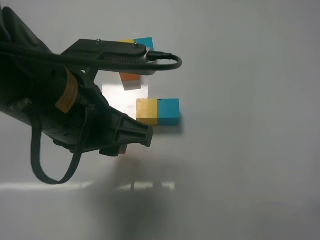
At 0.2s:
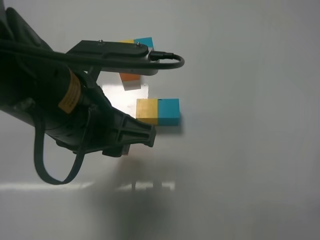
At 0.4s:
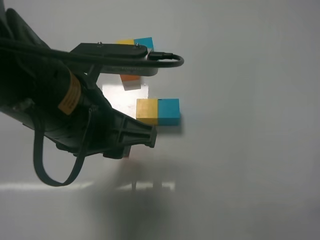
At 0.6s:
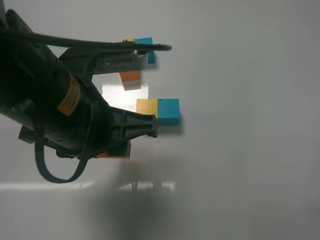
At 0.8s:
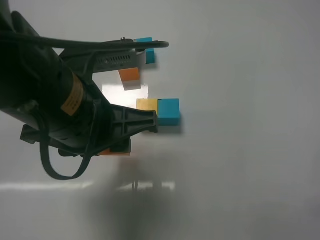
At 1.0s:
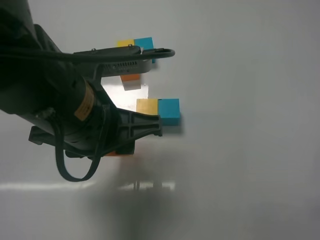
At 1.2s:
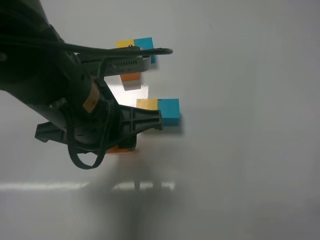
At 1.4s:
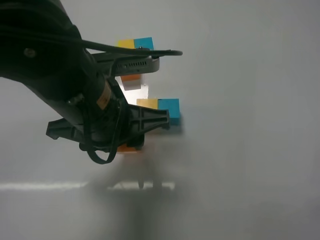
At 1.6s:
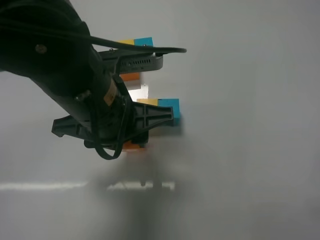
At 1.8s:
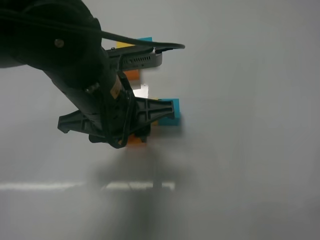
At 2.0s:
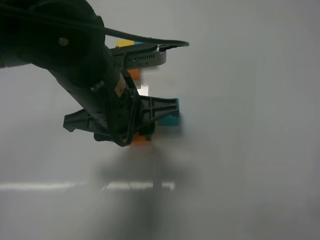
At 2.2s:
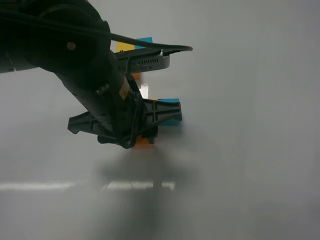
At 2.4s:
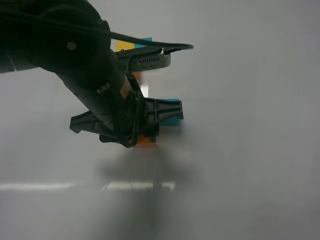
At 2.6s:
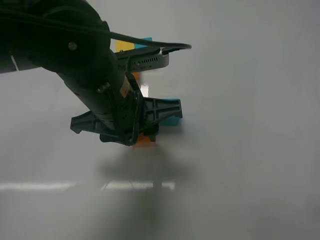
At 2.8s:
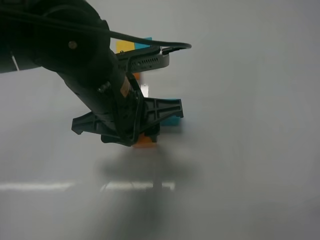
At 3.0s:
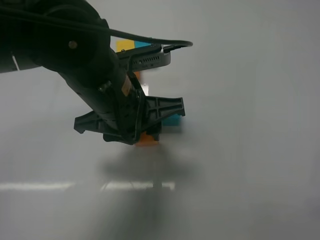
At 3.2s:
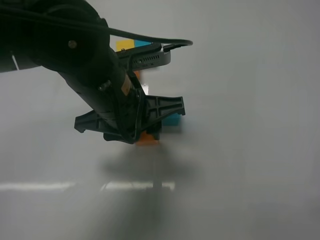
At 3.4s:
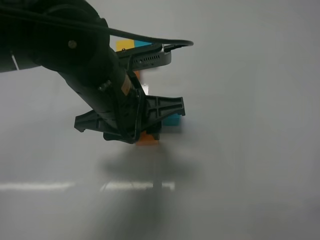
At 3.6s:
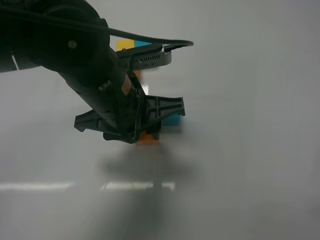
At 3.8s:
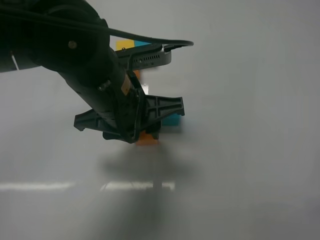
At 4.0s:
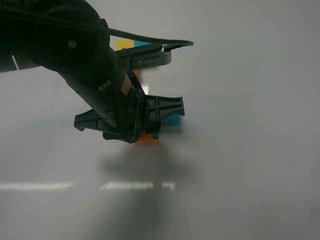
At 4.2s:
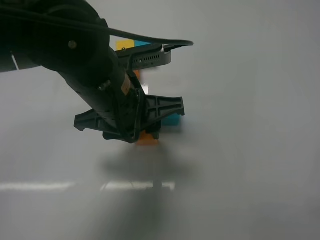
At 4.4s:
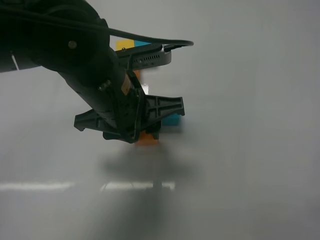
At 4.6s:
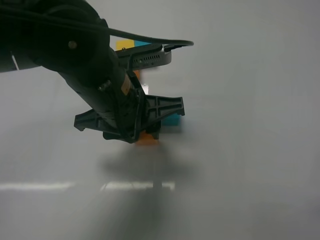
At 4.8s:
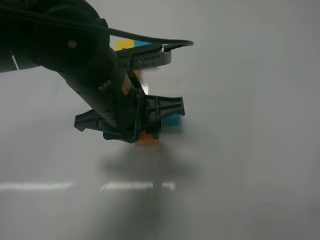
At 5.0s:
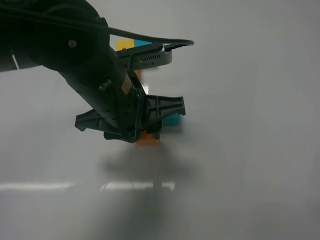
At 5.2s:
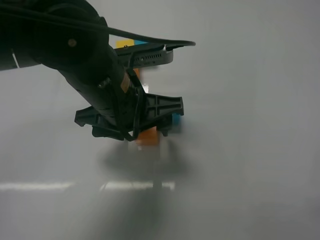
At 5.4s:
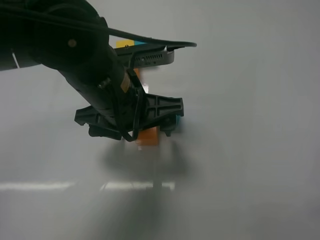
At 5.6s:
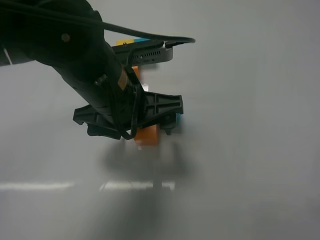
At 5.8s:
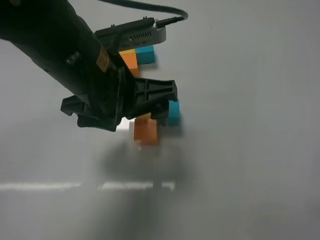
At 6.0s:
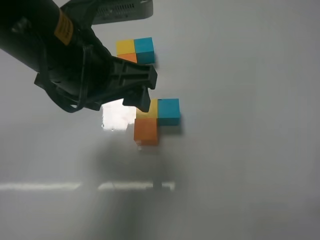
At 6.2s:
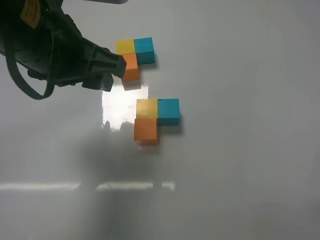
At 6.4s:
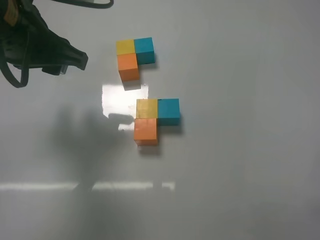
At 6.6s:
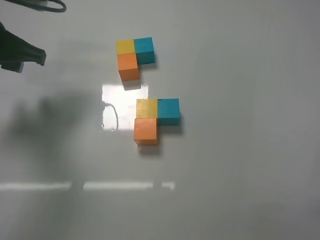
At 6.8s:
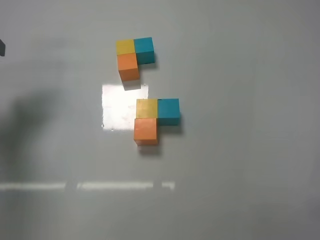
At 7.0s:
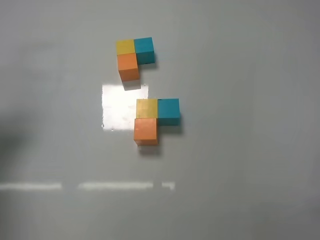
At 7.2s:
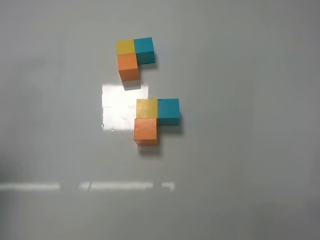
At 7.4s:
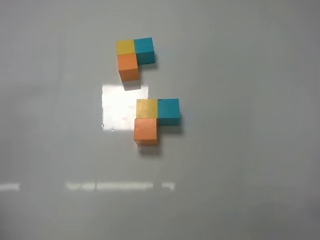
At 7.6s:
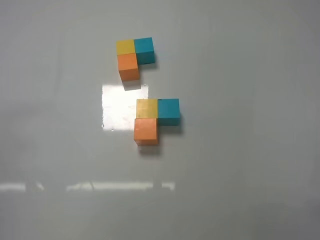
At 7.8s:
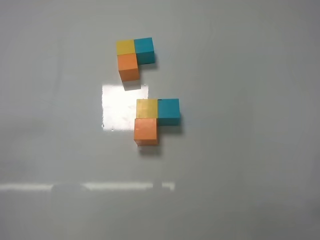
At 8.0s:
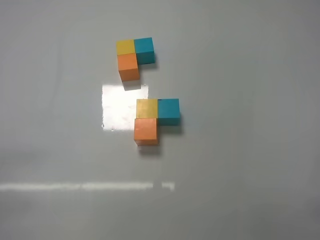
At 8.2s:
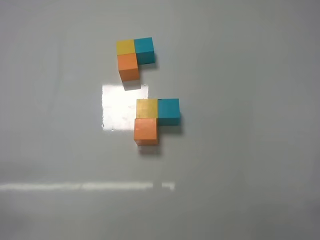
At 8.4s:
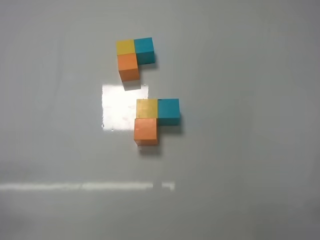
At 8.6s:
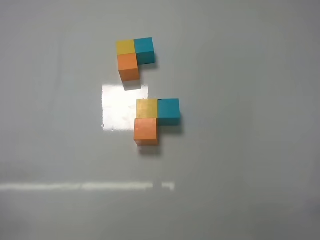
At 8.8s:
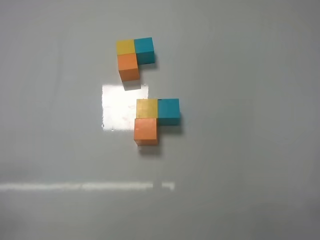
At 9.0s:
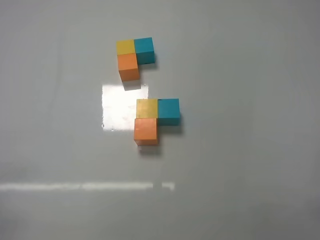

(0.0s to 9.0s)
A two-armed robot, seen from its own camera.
Task of the whole recording: According to the building block template in front, assemble the scattered blocks together.
Step, 0.0s - 5.2s: Put the orange cube on the behind of the yellow cube with the left gripper.
0.0s - 1.6s: The grippers stay close to where they were, moving slightly.
1.6s - 3.0s: The grippers stay close to where they were, moving slightly.
3.0s - 4.4s: Neither gripper changes place.
4.4s - 6.0s: The left gripper goes some 5 cm upward, and opens.
6.0s - 7.6s: The left gripper heads to the left and backward, covering about 30 cm, and closes its fingers.

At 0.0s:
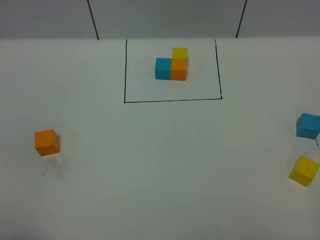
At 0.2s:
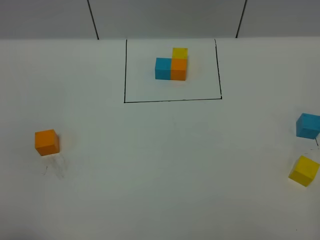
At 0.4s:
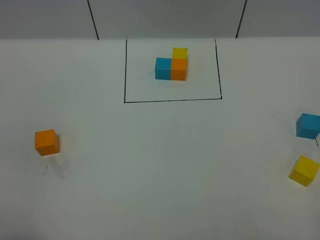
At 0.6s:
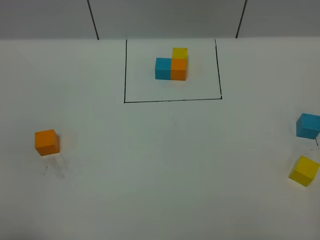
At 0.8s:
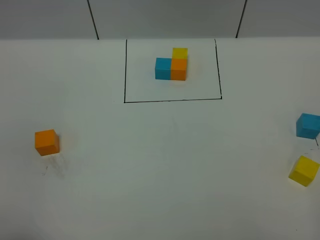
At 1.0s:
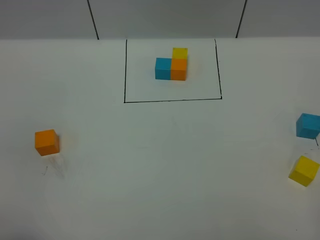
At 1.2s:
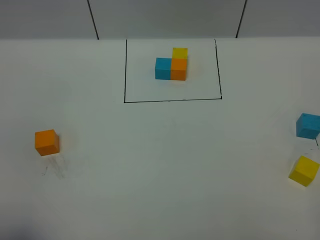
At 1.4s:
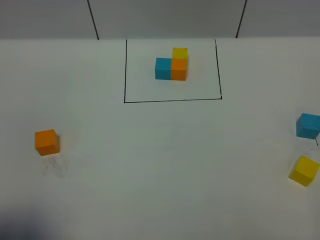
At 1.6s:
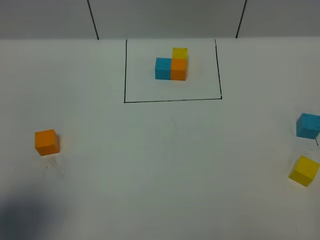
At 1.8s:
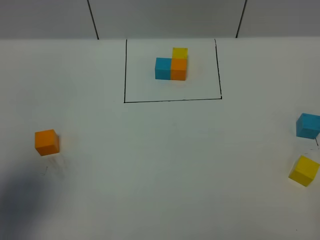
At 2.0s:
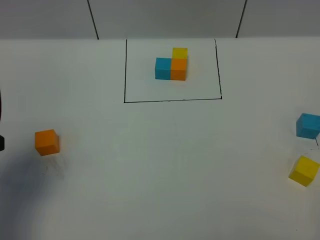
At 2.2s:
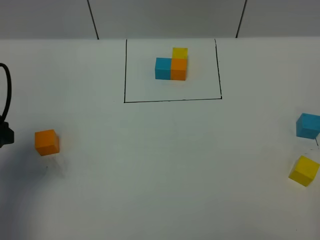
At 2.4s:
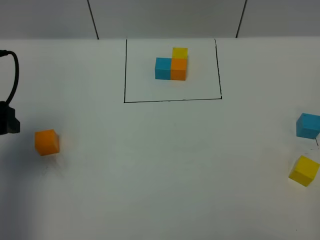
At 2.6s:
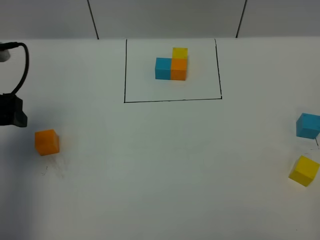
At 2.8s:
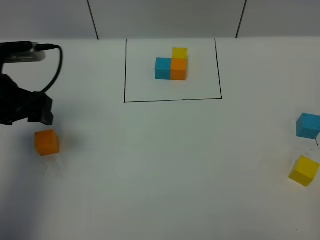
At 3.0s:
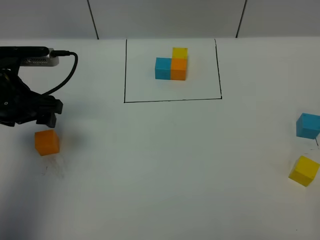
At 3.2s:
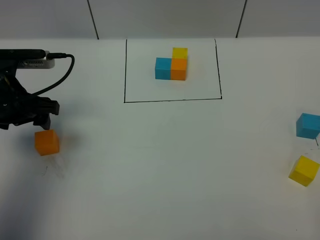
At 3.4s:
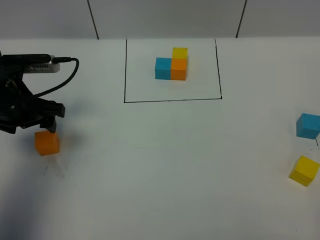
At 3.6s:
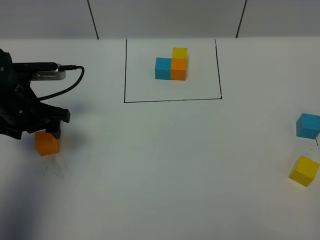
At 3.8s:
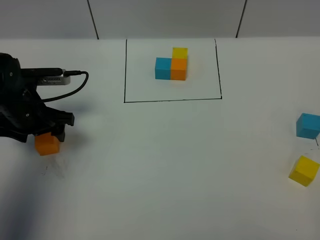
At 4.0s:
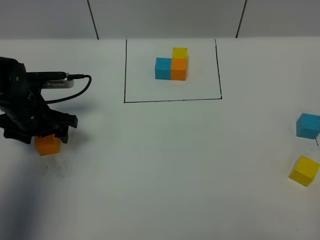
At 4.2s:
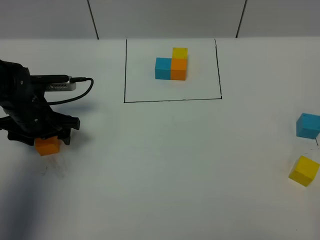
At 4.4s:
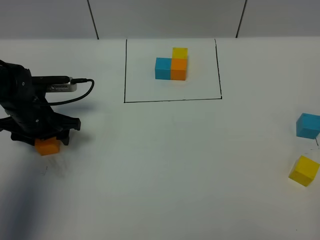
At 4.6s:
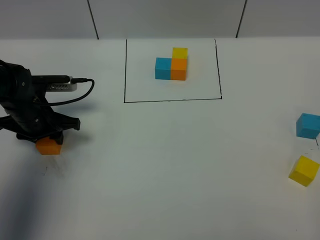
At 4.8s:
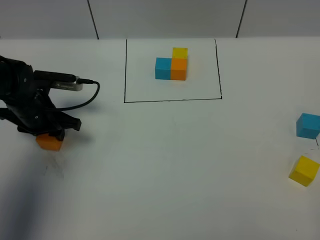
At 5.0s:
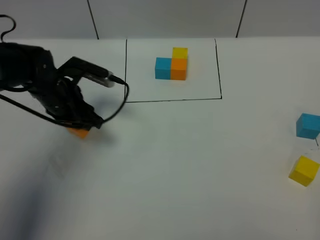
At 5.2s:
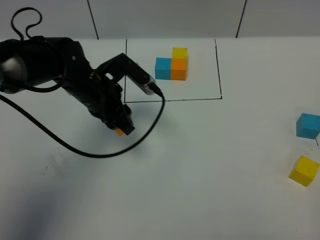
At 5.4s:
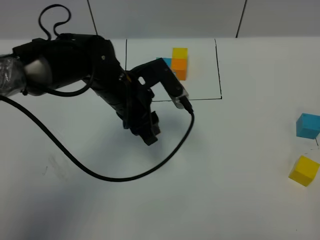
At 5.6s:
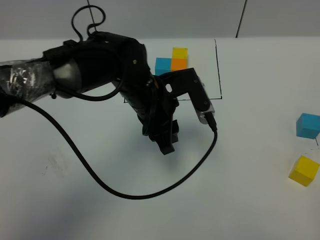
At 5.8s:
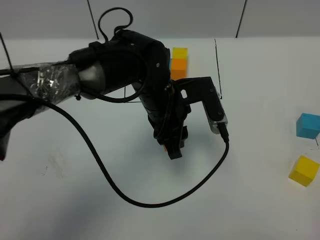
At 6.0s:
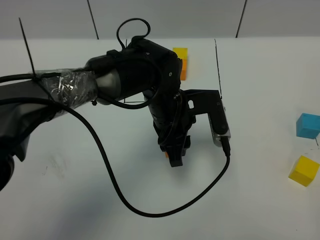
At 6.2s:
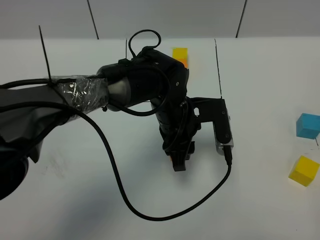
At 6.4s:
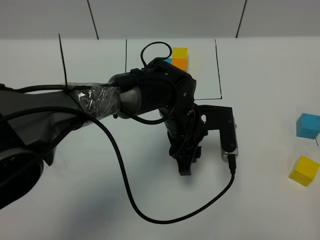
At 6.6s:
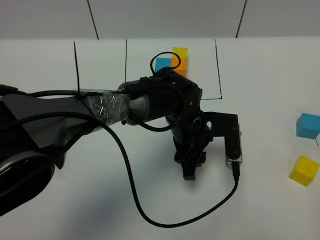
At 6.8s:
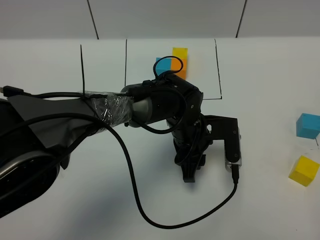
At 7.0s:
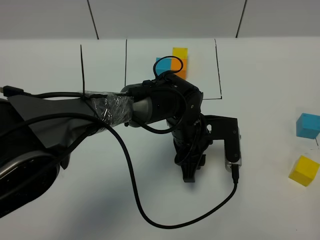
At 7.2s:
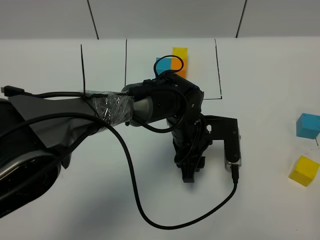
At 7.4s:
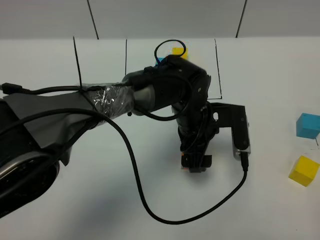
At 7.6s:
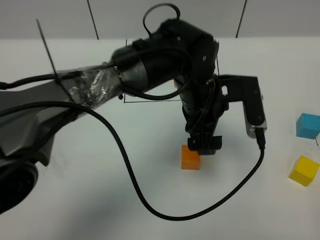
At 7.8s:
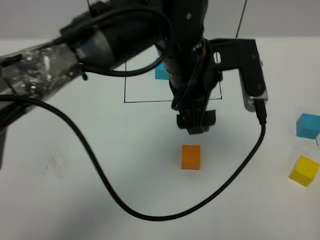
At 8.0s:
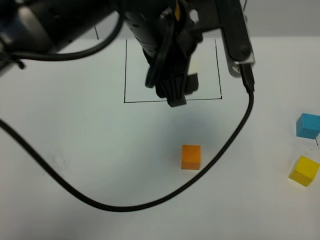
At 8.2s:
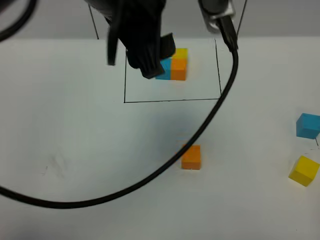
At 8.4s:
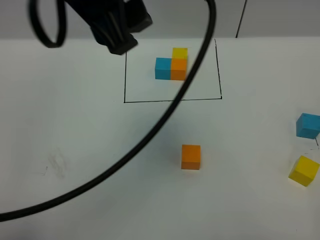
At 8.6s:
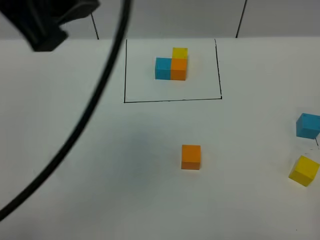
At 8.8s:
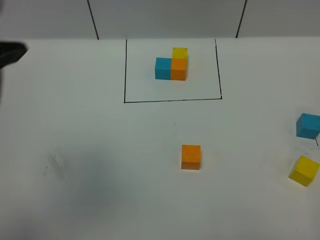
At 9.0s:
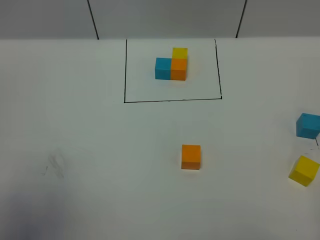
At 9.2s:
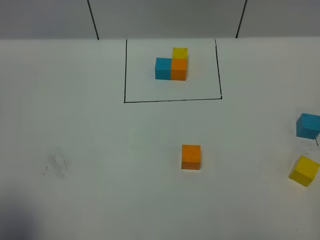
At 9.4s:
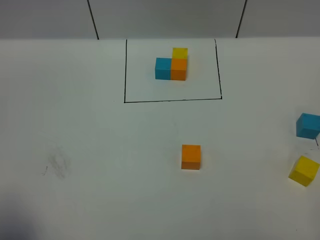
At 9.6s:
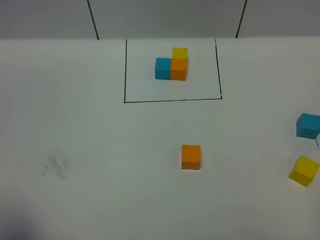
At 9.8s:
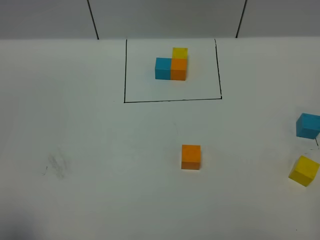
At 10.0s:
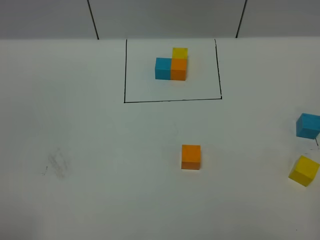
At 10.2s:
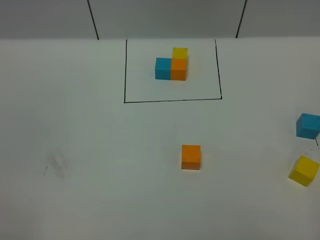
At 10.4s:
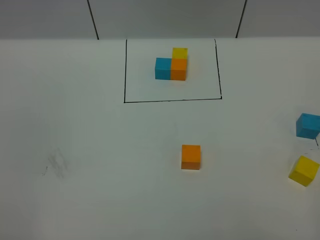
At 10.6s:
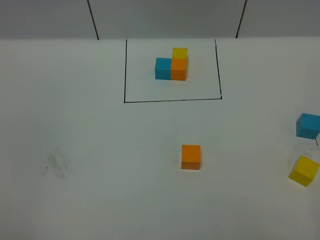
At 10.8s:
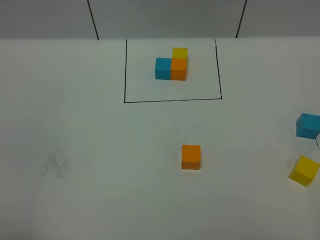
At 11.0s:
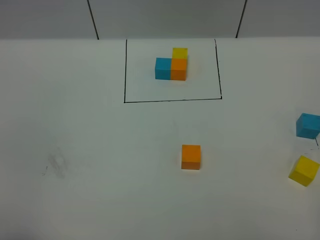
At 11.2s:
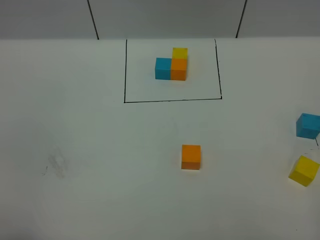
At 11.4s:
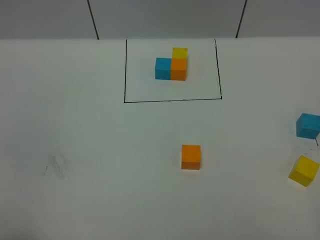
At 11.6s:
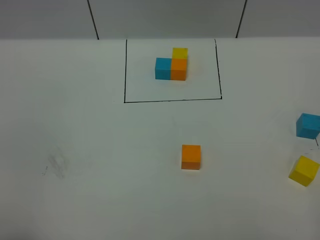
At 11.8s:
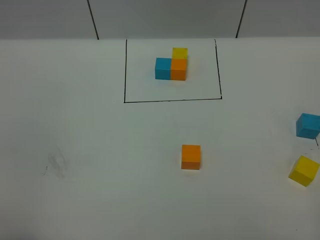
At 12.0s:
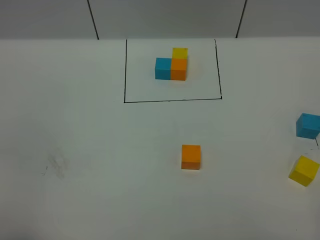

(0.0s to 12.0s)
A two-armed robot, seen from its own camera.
Task of the whole recording: According to the building block template in front, assemble the scattered blocks together.
Step, 2.0s - 7.6s: Put the orange cube in the center of the table.
0.0s - 1.6s: The left gripper shifts about 10 cm forward.
1.6s - 3.0s: The left gripper goes approximately 20 cm forward.
3.0s - 4.4s: The left gripper is displaced downward by approximately 10 cm, and closes.
4.4s - 6.0s: The left gripper shifts approximately 25 cm to the right, and closes up.
6.0s - 7.6s: The left gripper moves upward, roughly 5 cm, and opens its fingers.
7.6s - 9.0s: The left gripper shifts approximately 40 cm to the left, upward and backward.
9.0s - 10.4s: The left gripper heads backward and downward, covering roughly 20 cm.

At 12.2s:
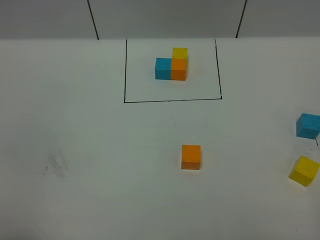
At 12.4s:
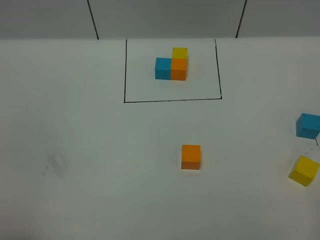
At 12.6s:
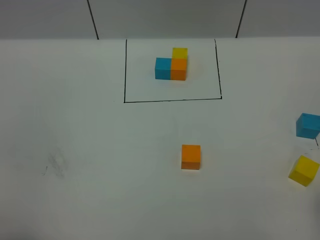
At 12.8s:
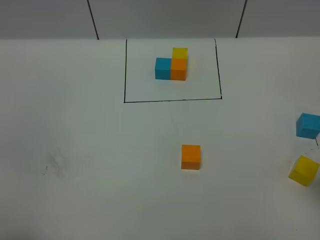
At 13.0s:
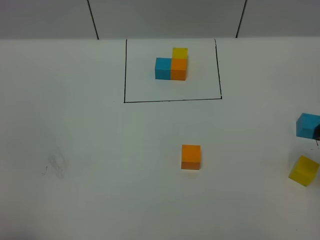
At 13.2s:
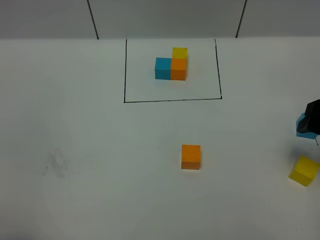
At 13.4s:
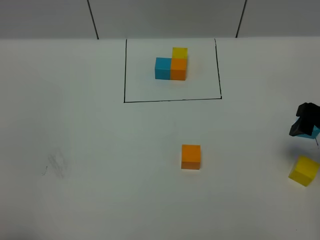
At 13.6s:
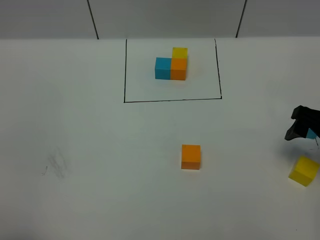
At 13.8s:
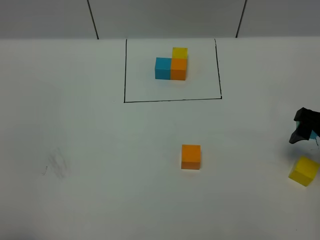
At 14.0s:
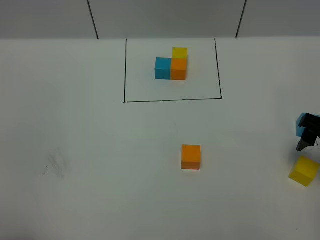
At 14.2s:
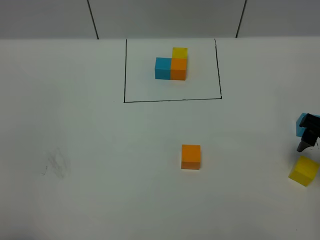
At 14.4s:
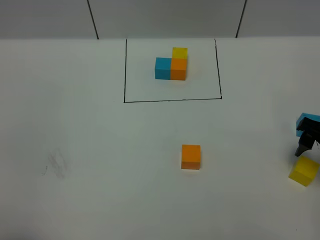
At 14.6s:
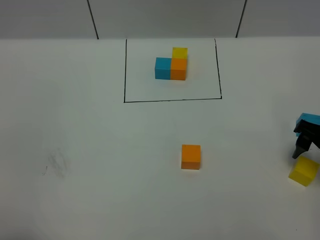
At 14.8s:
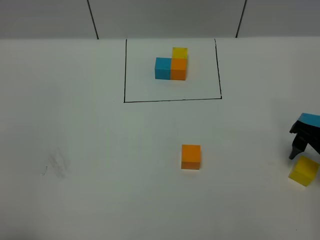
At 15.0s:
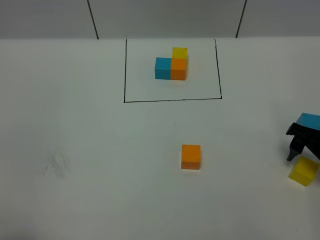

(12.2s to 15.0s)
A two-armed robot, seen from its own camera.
Task of the whole recording: According to the building block template in front, assemble the scattered blocks together.
12.2s - 13.6s: The right gripper travels forward by about 25 cm, and opens up.
13.6s - 15.0s: The right gripper is displaced downward by approximately 5 cm.
